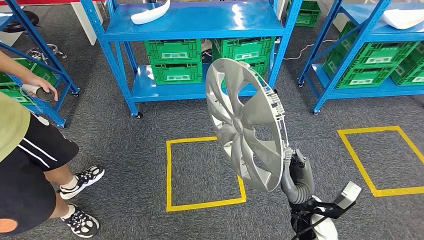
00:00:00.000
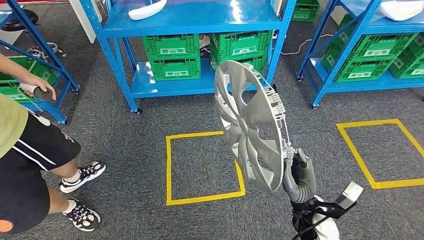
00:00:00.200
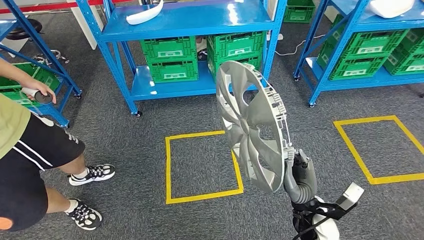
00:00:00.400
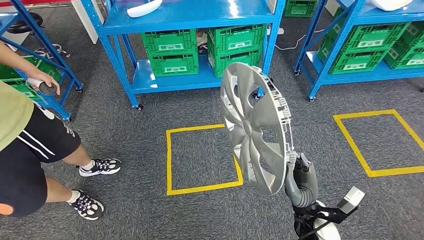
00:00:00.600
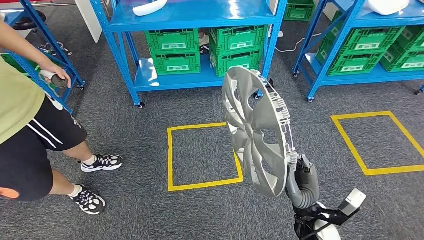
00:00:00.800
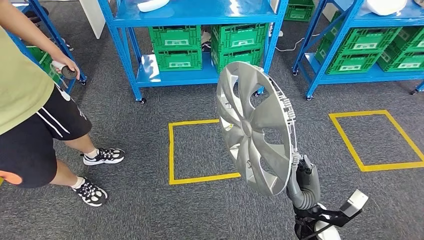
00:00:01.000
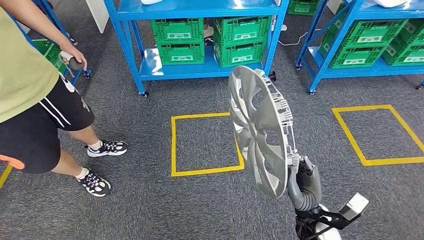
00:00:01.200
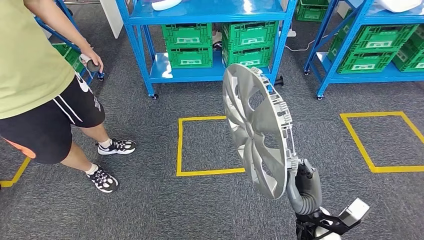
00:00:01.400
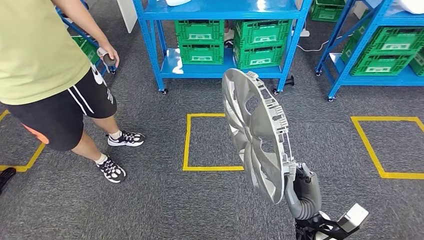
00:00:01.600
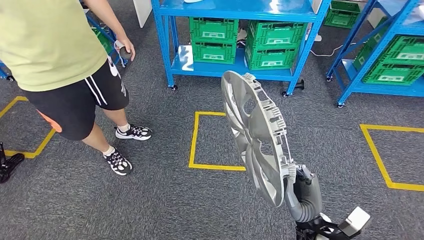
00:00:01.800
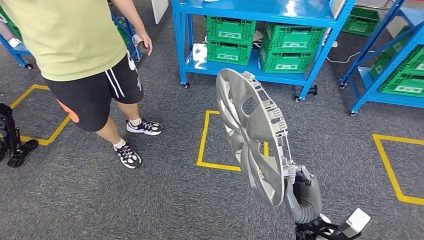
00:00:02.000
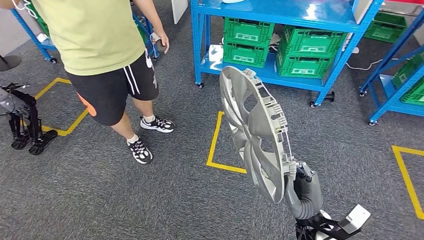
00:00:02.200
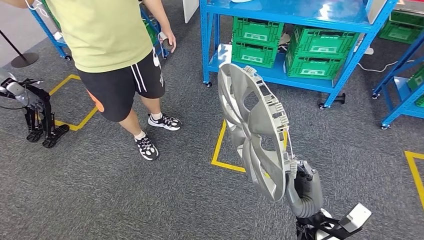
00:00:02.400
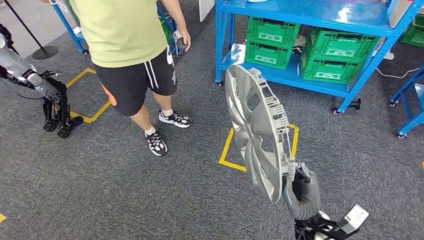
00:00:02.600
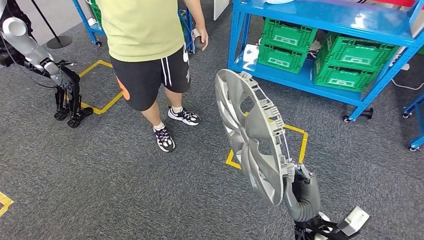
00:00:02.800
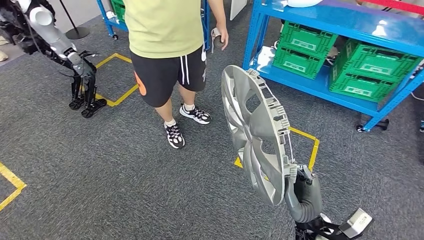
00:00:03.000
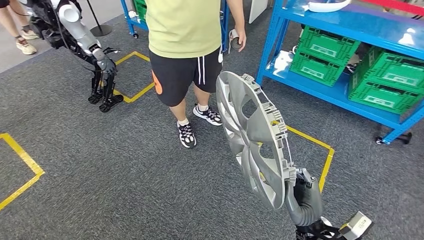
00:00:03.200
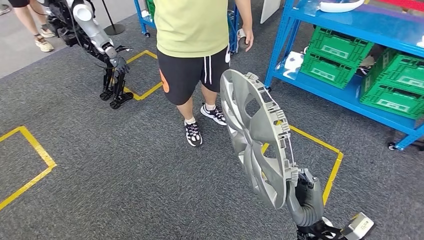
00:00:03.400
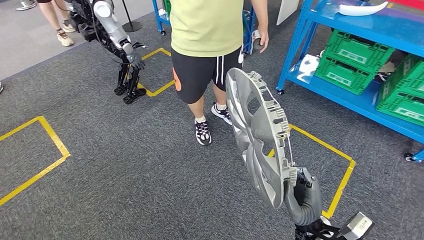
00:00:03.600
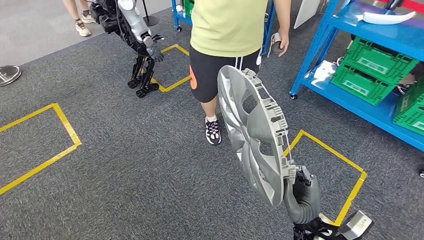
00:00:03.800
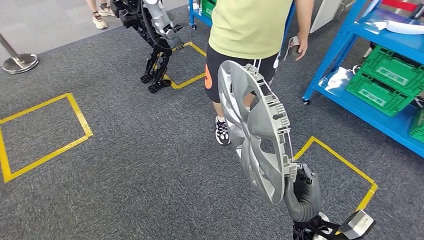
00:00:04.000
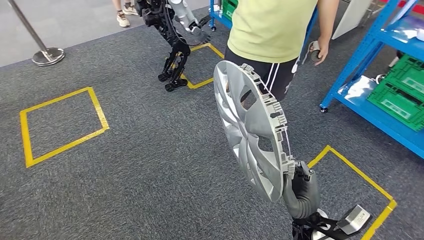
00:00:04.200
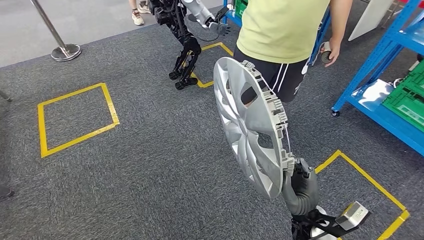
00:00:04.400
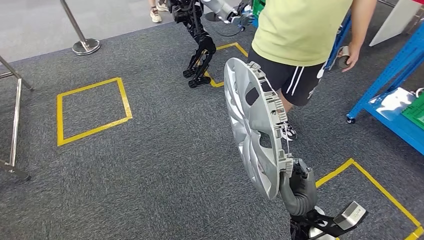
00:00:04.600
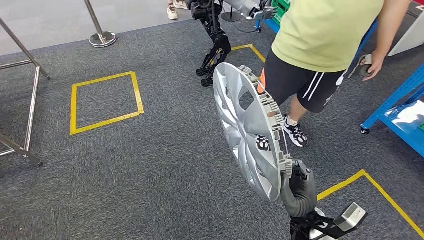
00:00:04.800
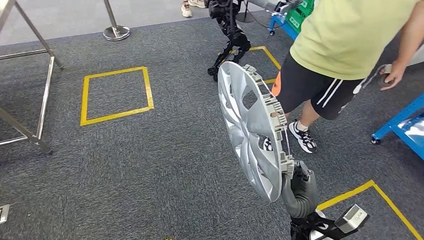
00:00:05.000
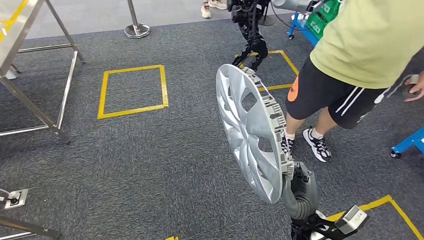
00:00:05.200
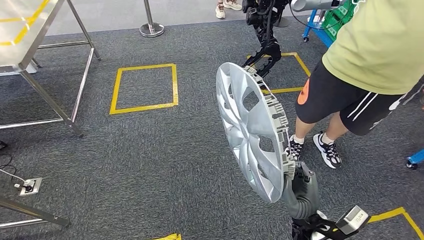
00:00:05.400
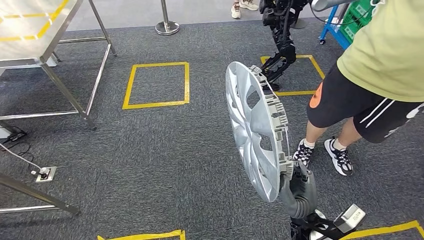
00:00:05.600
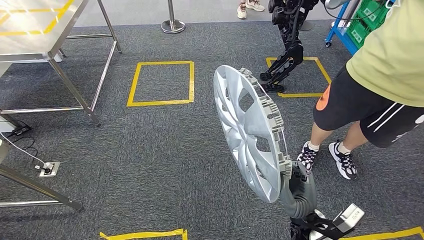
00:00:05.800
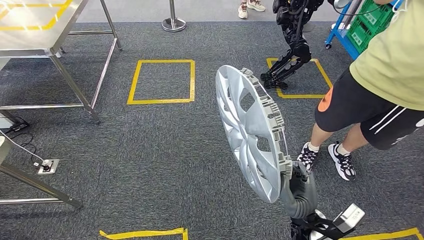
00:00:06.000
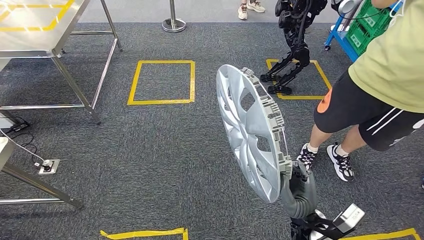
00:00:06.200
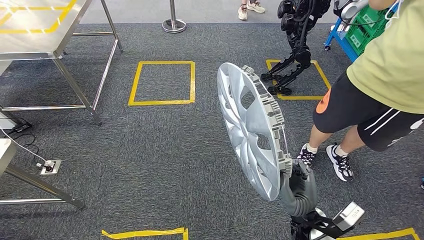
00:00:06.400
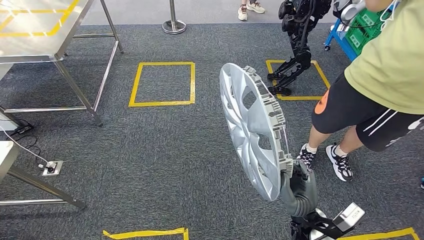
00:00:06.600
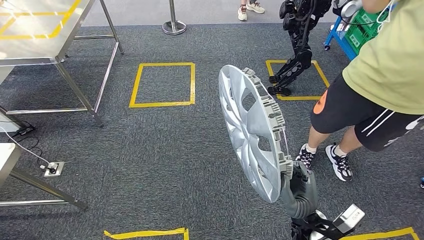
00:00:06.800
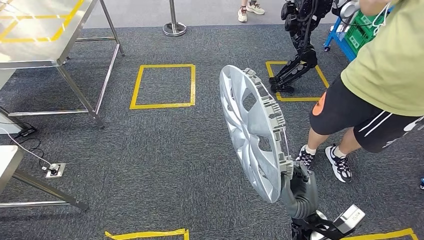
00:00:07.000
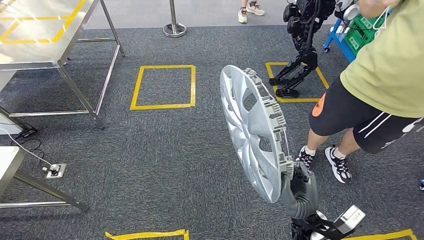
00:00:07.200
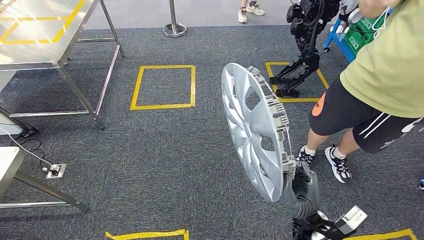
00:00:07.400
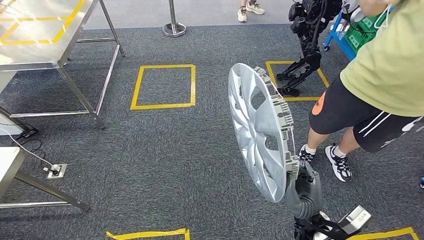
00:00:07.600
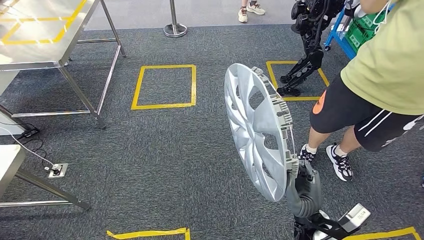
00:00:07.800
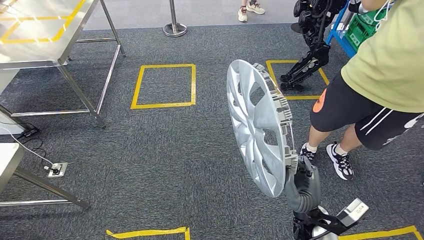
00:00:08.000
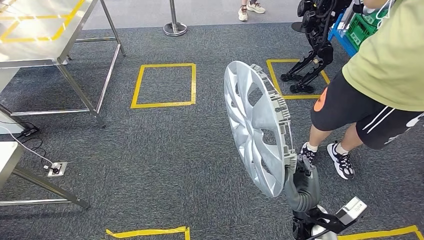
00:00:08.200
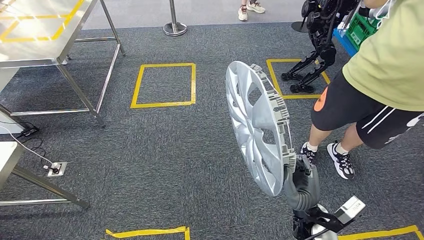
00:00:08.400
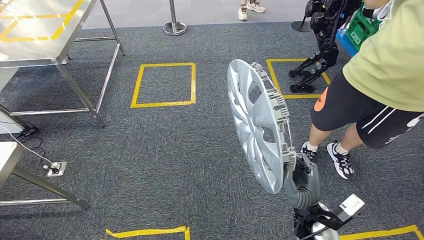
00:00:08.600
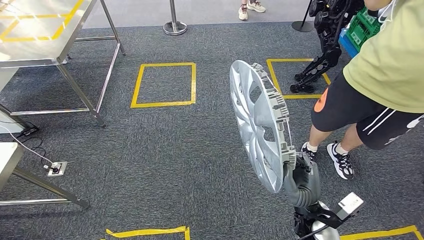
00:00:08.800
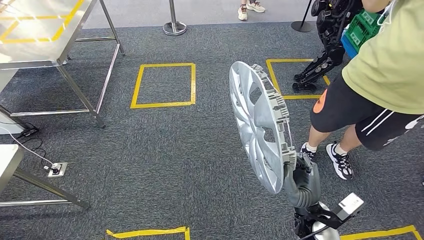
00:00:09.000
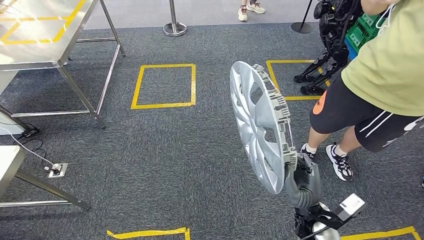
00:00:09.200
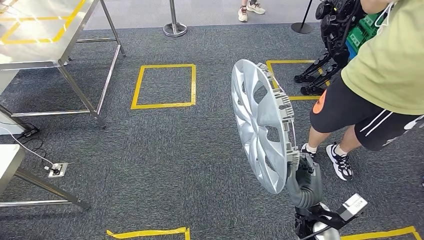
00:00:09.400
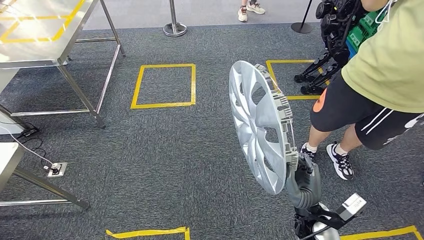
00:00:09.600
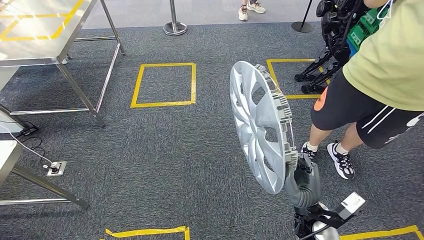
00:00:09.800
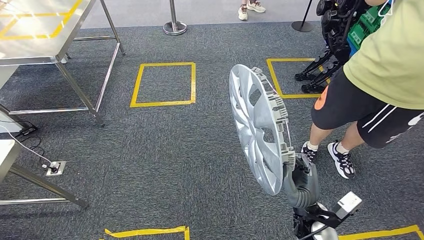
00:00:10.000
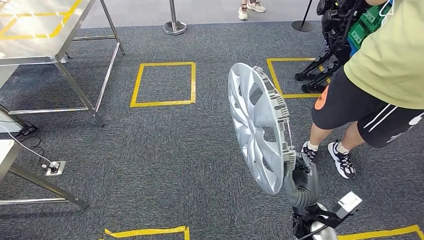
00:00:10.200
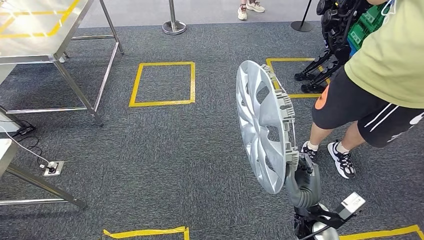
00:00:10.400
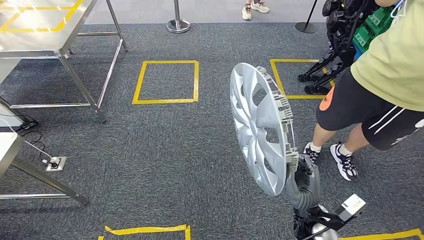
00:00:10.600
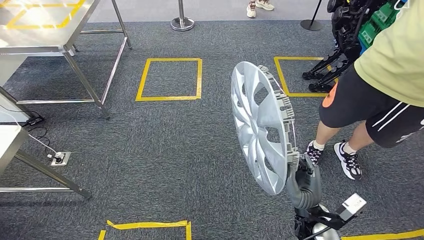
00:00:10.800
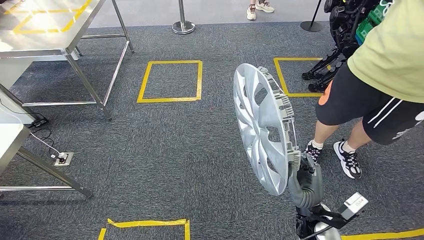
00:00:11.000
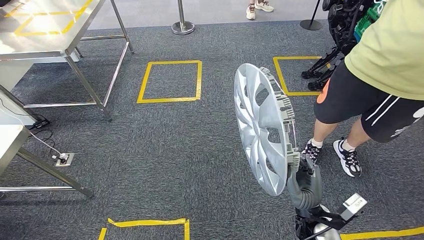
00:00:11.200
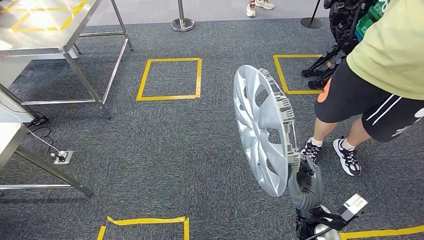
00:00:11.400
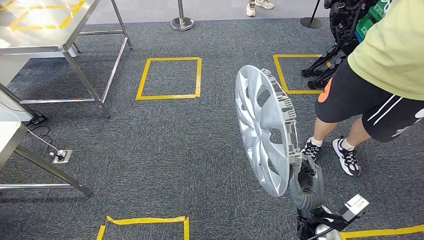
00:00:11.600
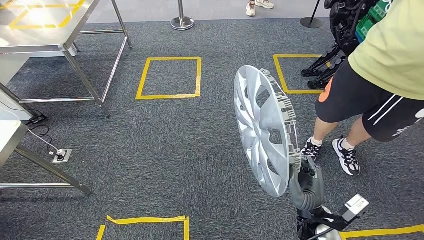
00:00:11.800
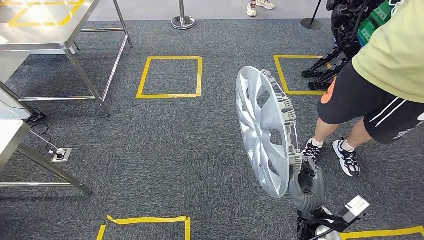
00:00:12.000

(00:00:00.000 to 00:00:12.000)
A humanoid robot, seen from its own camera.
00:00:07.600 - 00:00:09.000: There are only small adjustments of the hands.
00:00:09.000 - 00:00:10.400: Both hands stay put.

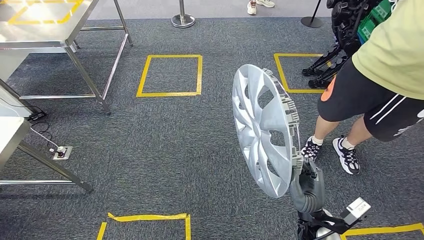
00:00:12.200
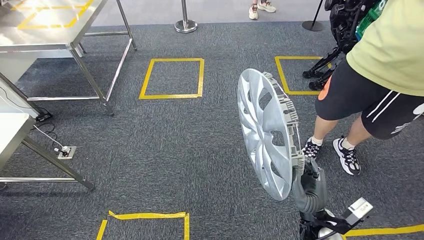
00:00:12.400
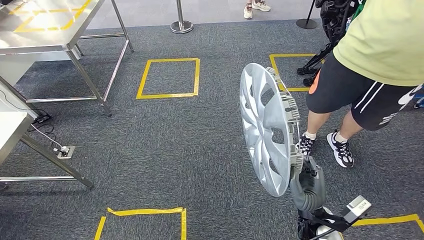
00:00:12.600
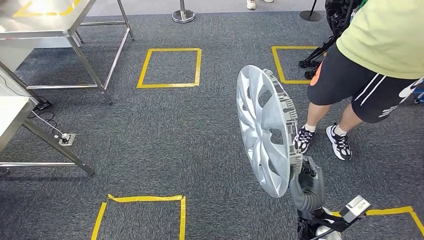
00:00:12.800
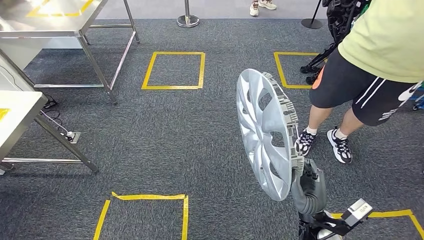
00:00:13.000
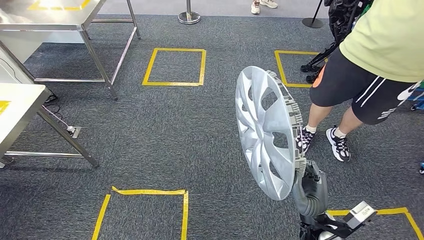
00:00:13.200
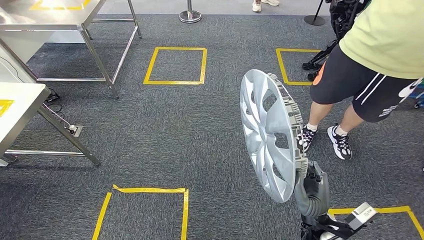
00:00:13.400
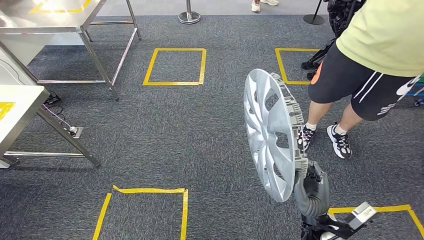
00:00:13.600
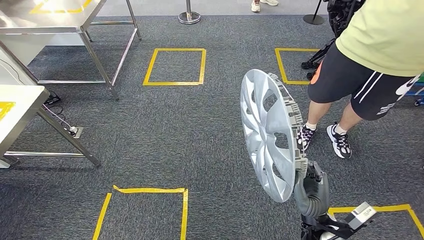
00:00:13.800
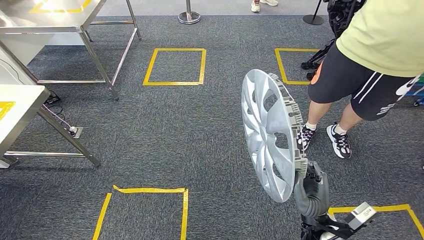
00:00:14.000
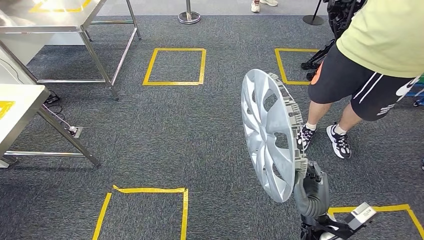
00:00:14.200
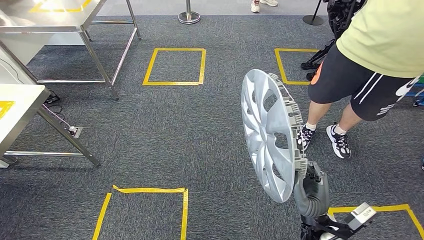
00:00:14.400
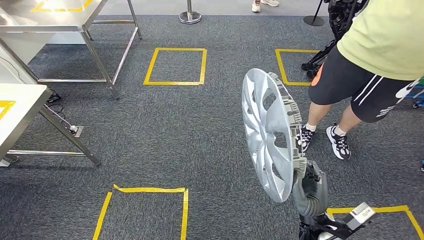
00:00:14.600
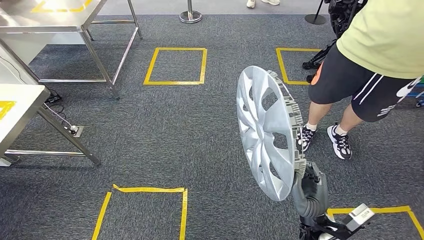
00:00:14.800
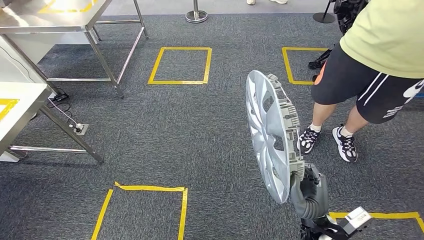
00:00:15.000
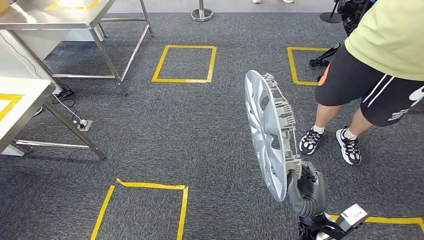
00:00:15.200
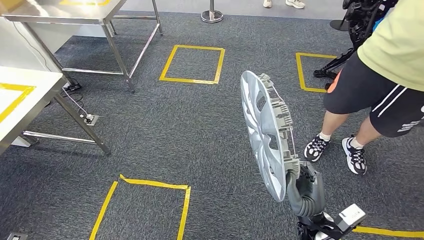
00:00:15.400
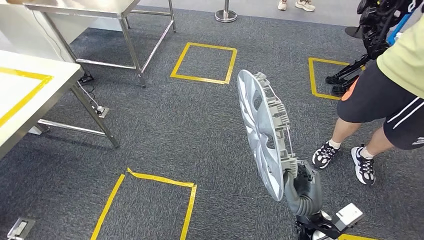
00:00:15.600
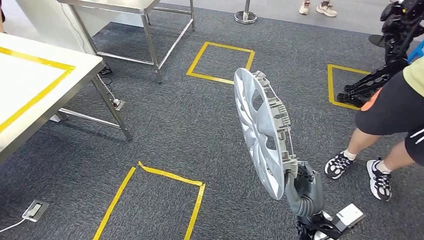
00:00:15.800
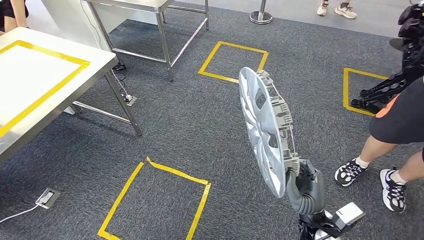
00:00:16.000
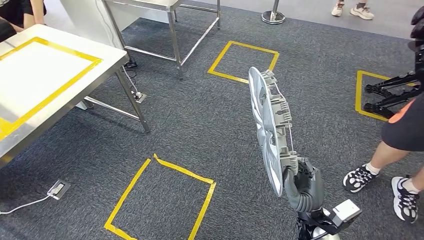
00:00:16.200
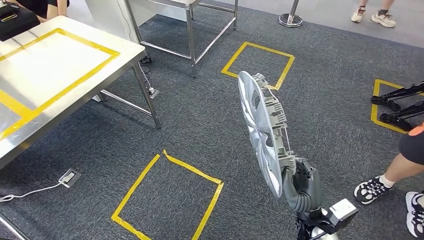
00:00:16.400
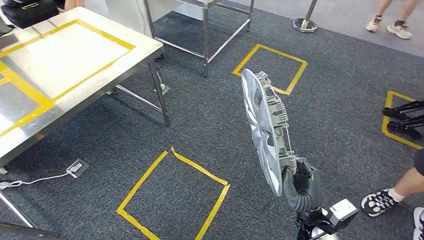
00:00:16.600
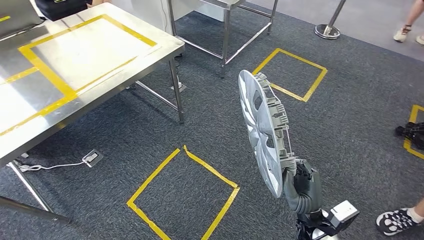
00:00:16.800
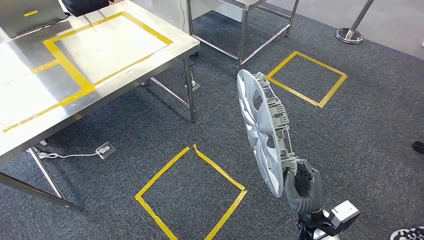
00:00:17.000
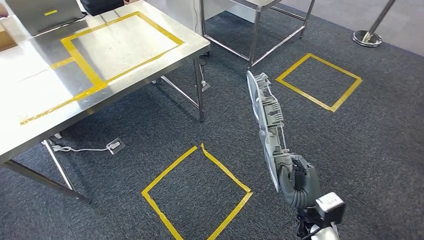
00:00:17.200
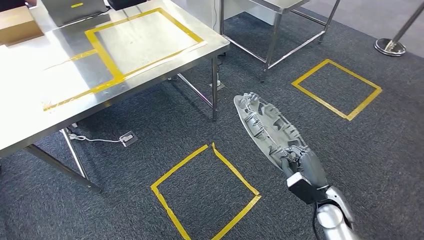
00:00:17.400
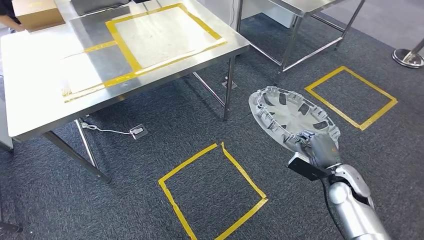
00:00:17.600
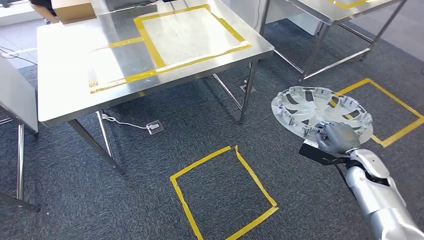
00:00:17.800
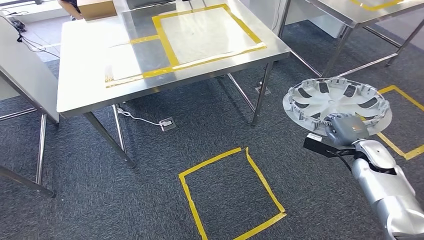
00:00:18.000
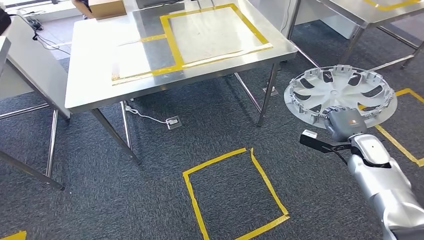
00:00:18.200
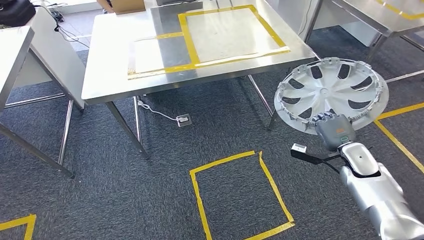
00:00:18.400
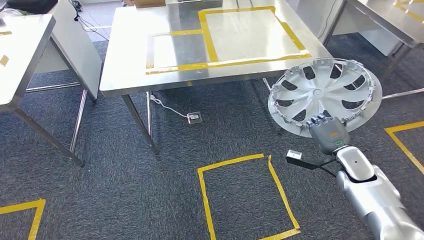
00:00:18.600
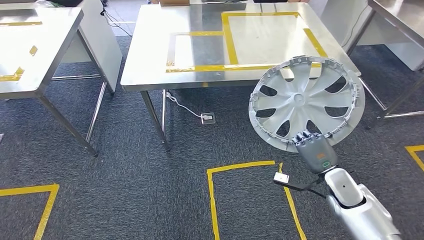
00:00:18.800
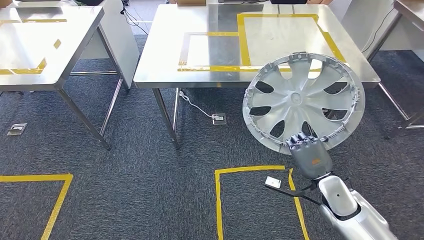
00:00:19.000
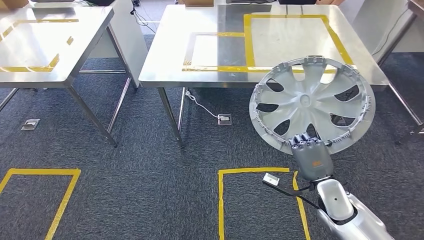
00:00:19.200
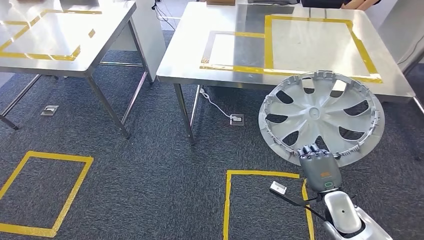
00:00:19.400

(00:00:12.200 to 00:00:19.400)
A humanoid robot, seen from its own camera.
00:00:13.600 - 00:00:15.000: The two hands keep their place.
